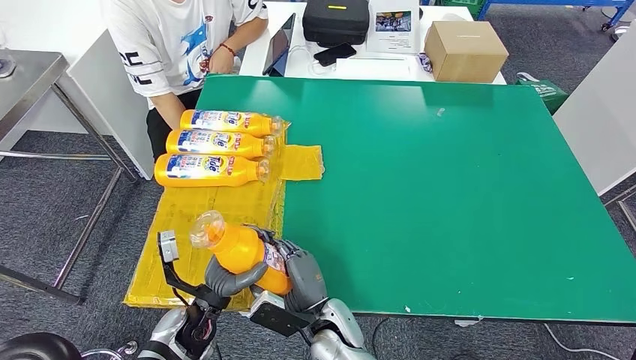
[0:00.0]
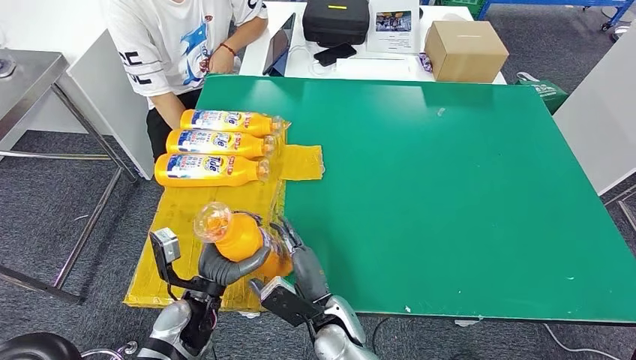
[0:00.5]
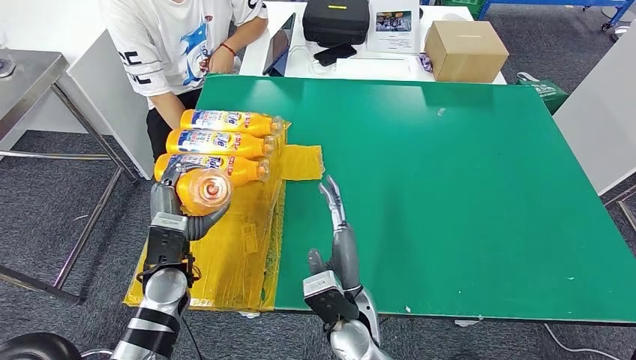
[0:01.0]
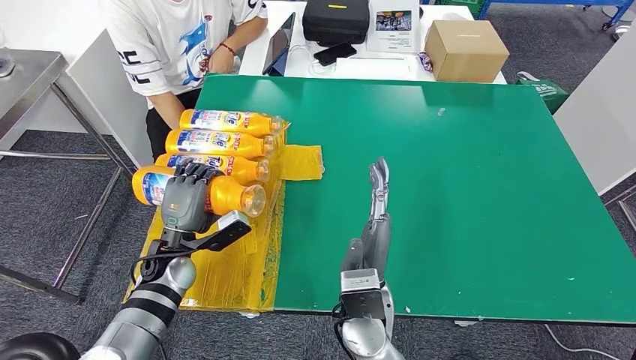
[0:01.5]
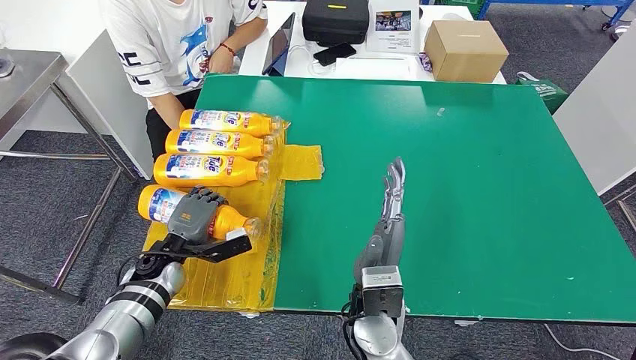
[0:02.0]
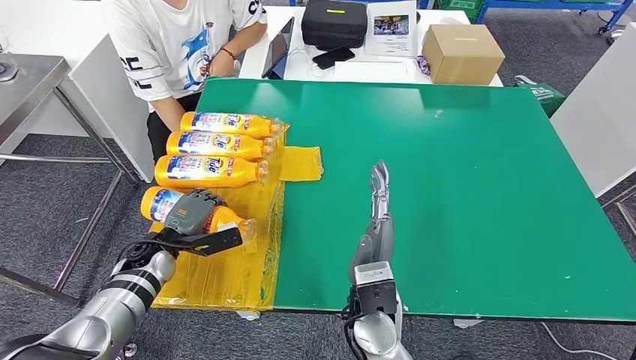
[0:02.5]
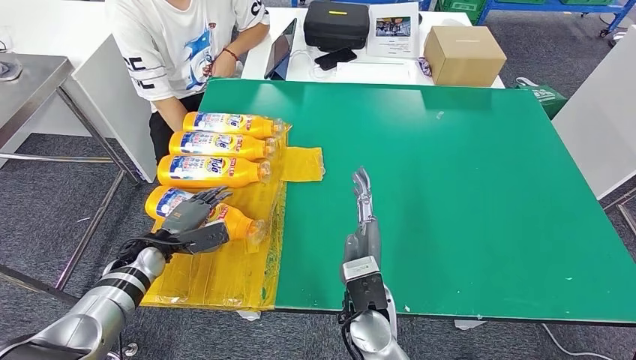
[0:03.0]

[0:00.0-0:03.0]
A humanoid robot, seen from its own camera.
Step, 0:00.0 to 0:03.0: Flip the fast-moving consumer goods bottle to the front side.
0:00.0 to 0:01.5: The right hand heads upward, covering about 10 cm, while the left hand travels forward and to the left by some 10 cm.
